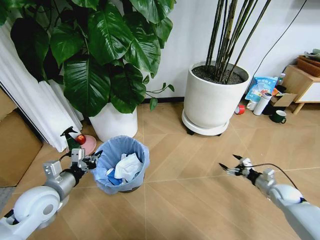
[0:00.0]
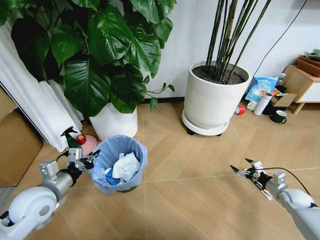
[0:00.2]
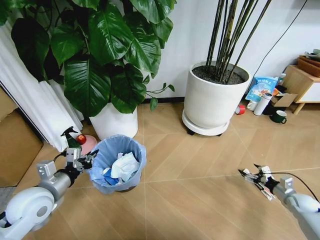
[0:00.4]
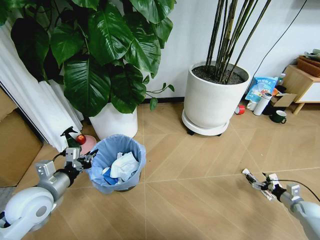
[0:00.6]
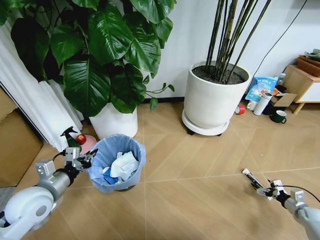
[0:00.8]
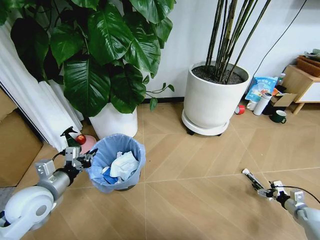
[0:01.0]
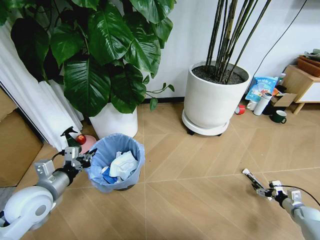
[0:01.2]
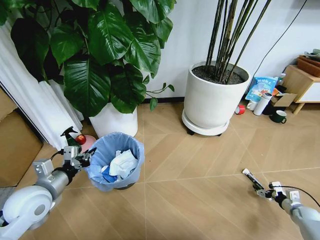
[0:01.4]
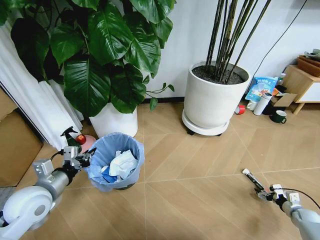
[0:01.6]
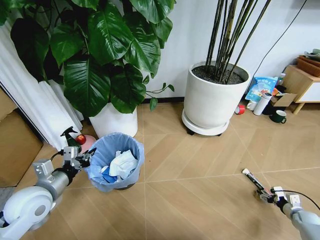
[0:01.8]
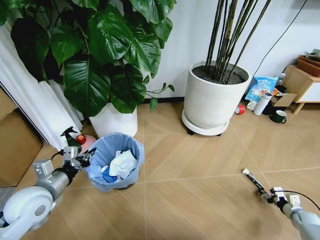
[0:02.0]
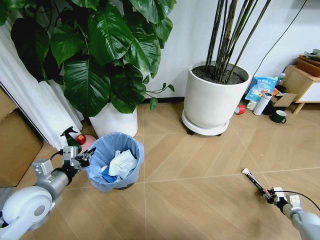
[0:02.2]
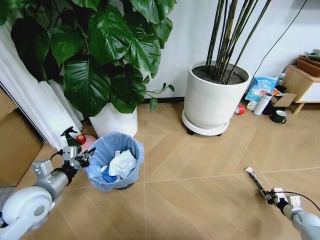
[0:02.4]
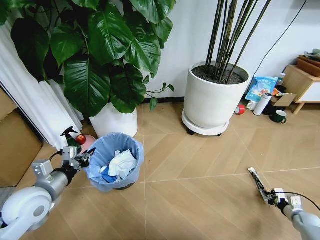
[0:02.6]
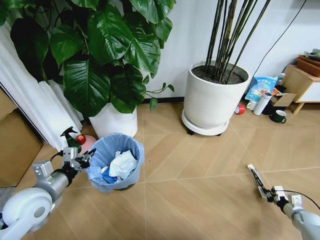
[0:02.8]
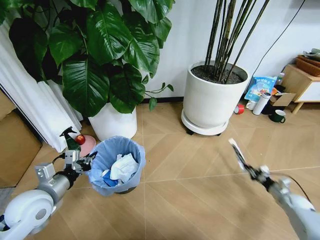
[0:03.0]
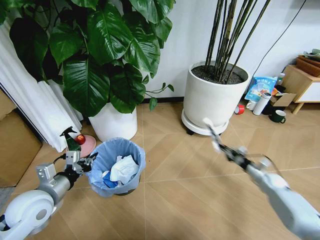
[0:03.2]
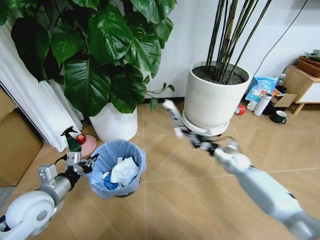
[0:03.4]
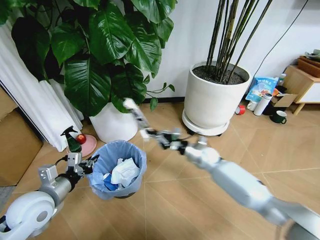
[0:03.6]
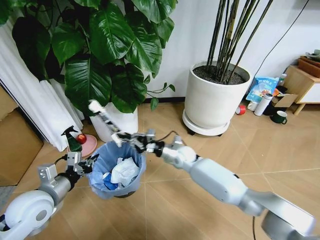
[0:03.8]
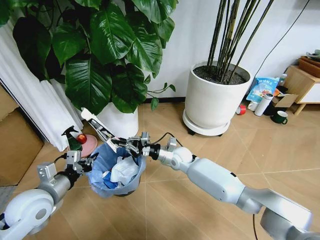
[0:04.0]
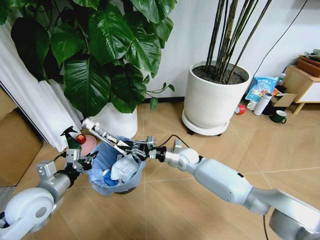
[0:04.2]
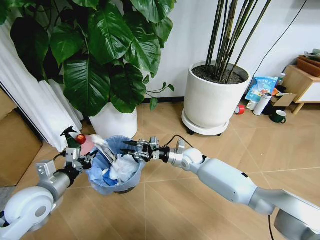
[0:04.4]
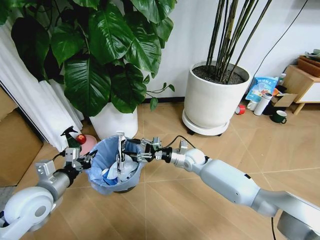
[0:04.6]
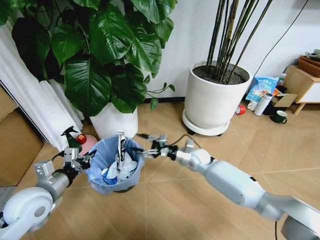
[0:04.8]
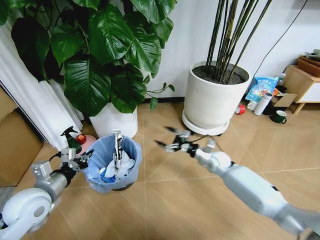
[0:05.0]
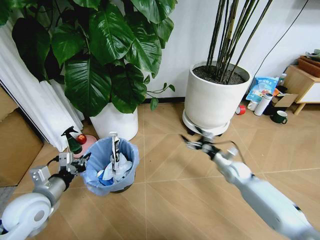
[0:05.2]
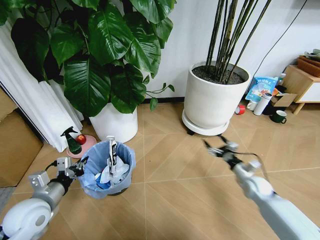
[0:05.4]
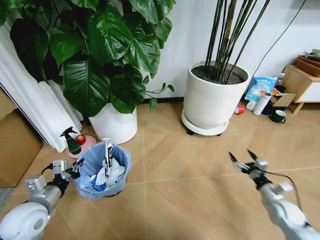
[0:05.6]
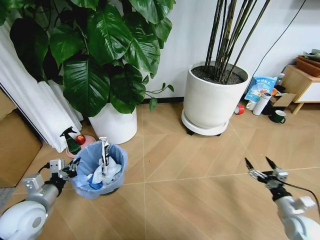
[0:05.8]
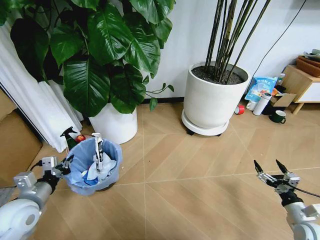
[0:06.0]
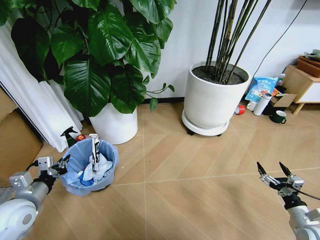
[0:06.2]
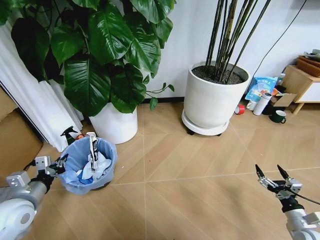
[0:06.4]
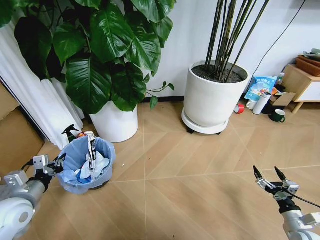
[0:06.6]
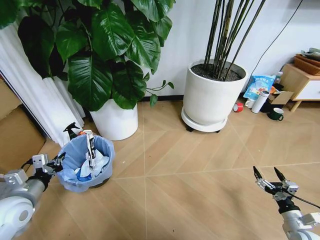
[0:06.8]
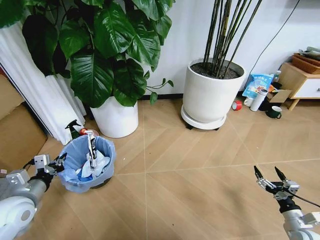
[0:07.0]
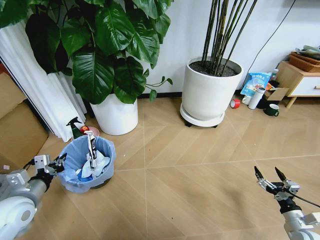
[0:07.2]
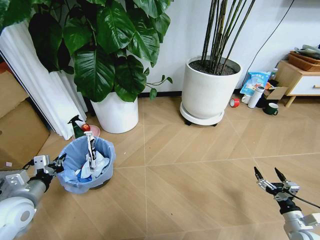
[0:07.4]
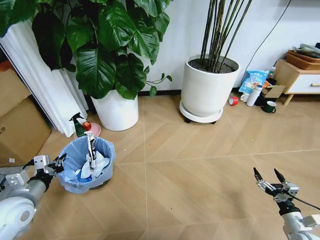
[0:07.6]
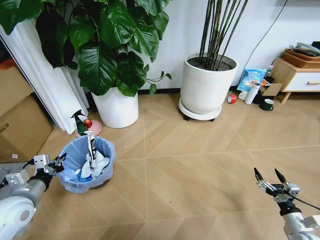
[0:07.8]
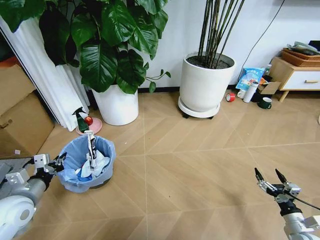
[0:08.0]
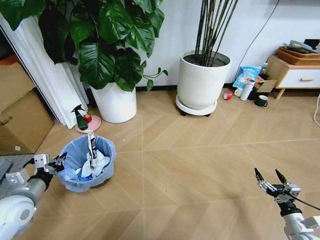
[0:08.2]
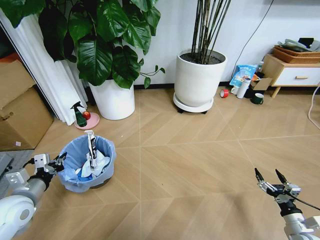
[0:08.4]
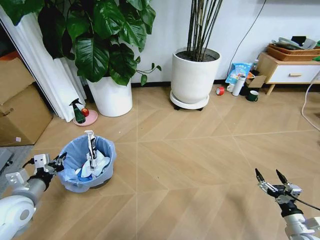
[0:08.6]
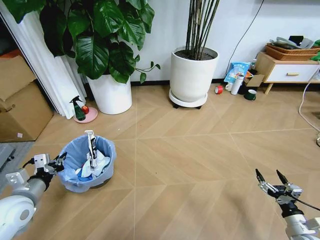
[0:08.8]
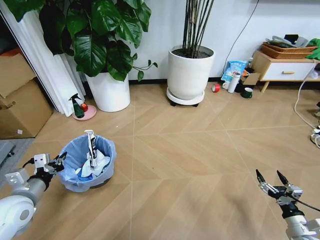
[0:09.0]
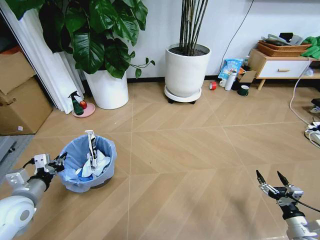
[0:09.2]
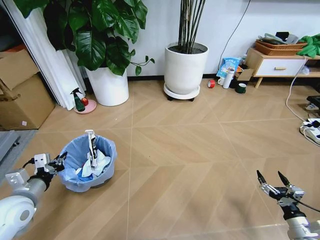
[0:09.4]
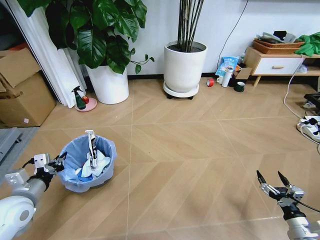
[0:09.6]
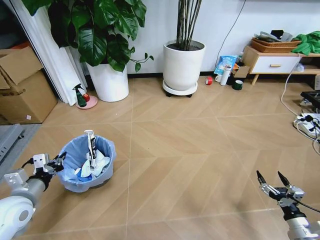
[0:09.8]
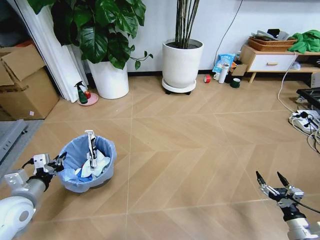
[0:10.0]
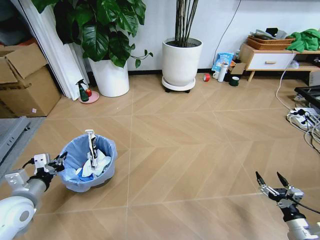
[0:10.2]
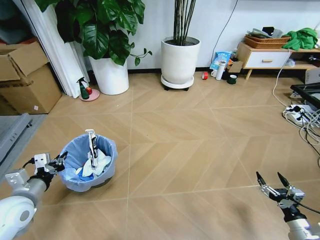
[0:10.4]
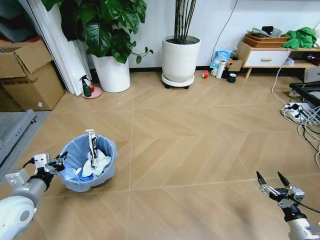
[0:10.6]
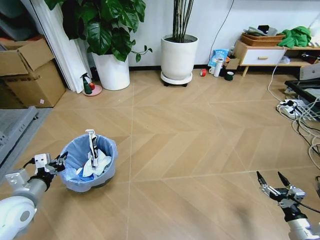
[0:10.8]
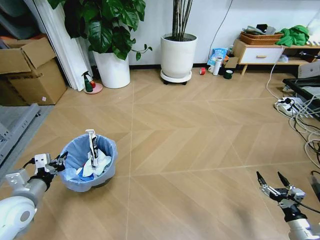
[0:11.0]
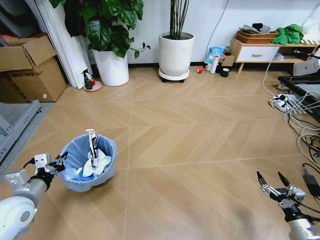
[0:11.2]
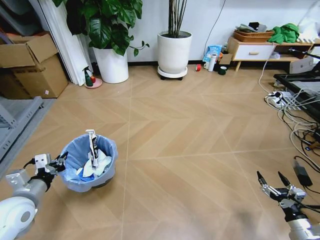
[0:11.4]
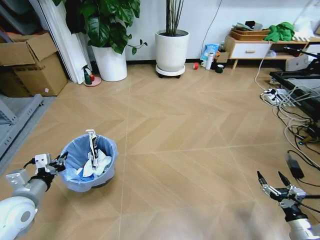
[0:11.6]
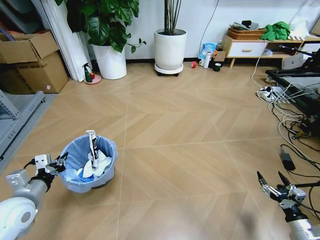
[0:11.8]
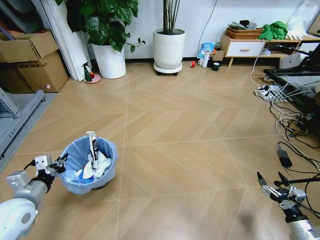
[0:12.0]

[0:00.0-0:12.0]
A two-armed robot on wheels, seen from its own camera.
Task of the whole recording: Pick up the trash bin and place the garbage on the floor into it.
0:00.0 to 0:01.6: The right gripper shifts about 15 cm to the right, downward and backward.
0:01.6 to 0:03.0: The right gripper closes its fingers.
0:03.0 to 0:04.4: The right gripper moves to the left, some 50 cm.
0:04.4 to 0:06.0: The right gripper moves to the right and backward, about 50 cm, and opens its fingers, while the left gripper travels to the left by approximately 5 cm.

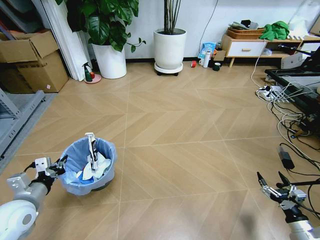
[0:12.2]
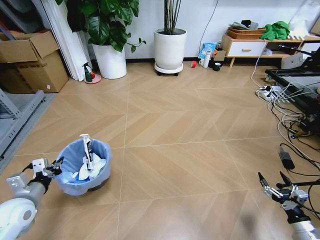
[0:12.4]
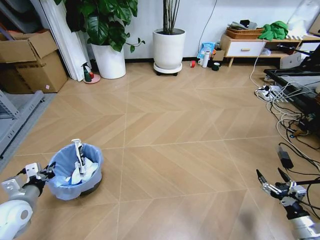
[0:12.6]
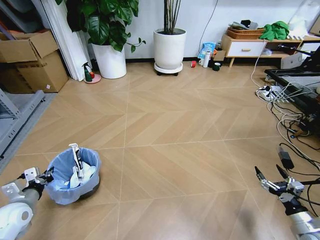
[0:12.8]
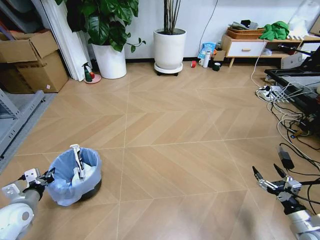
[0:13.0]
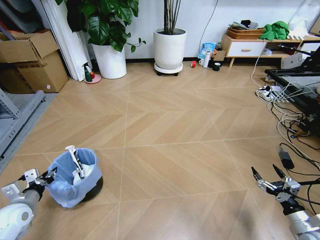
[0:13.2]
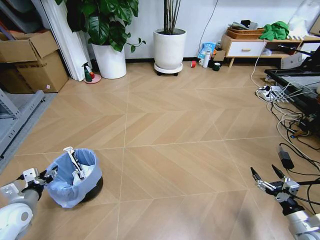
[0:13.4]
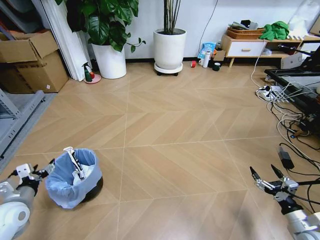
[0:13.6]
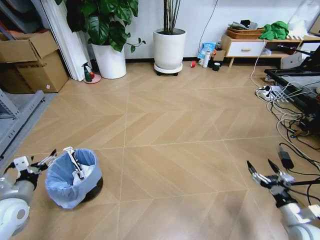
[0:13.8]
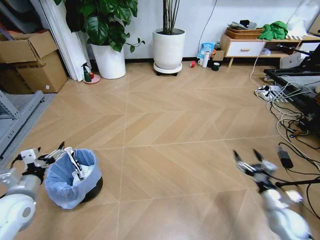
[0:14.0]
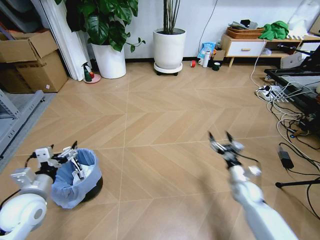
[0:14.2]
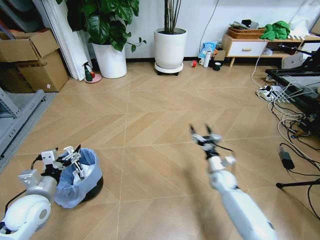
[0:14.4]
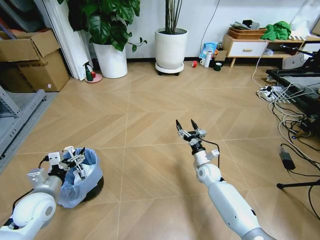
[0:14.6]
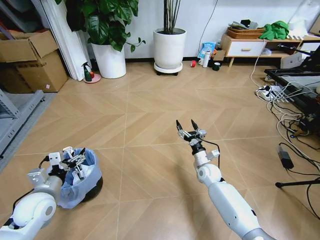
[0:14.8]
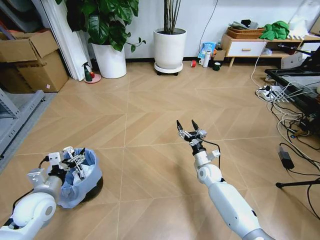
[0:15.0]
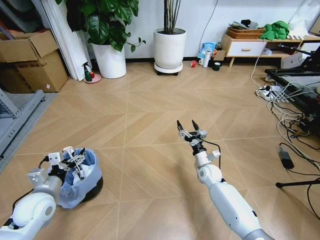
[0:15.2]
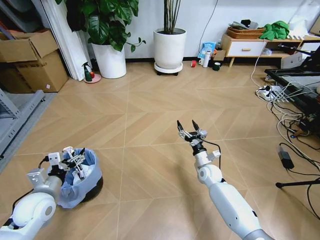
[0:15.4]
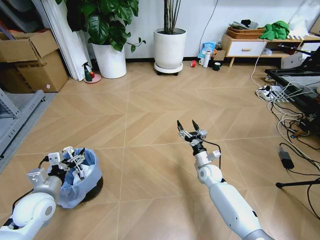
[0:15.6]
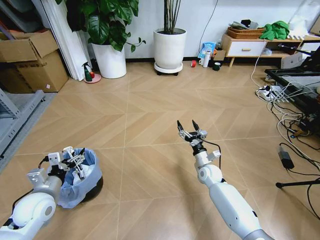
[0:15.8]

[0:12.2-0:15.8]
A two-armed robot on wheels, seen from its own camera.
Task of the whole recording: Pick up the trash bin and place the garbage on the floor into it.
0:12.2 to 0:14.0: The left gripper opens. Meanwhile the right gripper travels forward and to the left by about 10 cm.
0:14.0 to 0:15.8: The left gripper moves approximately 5 cm. Meanwhile the right gripper goes approximately 30 cm to the left and forward.
